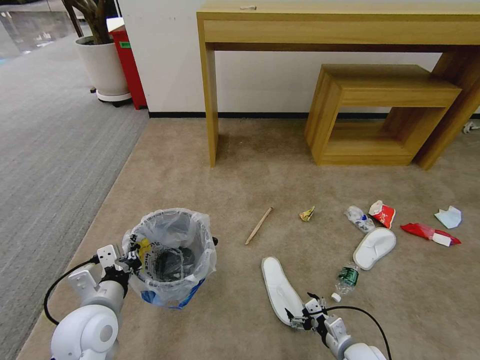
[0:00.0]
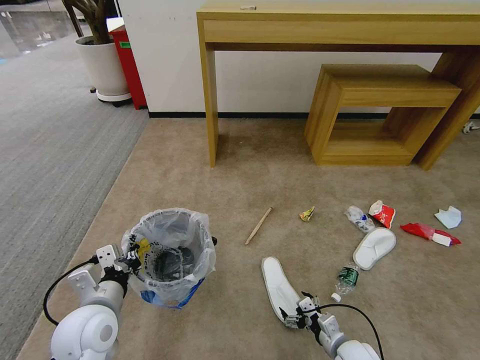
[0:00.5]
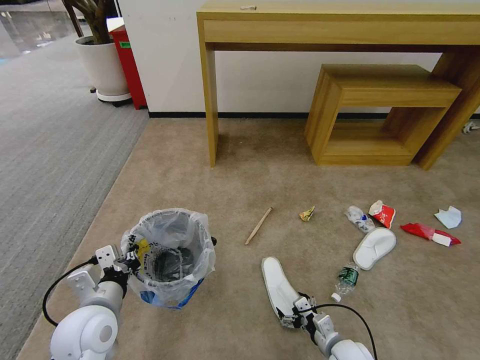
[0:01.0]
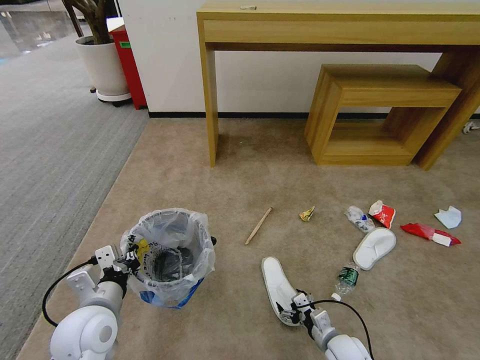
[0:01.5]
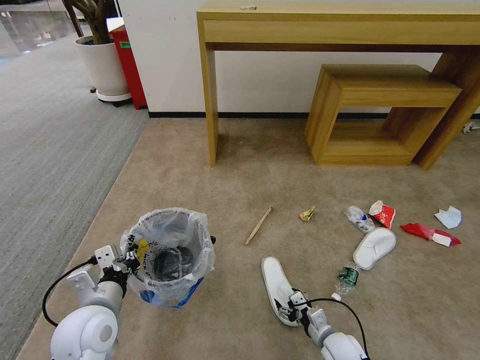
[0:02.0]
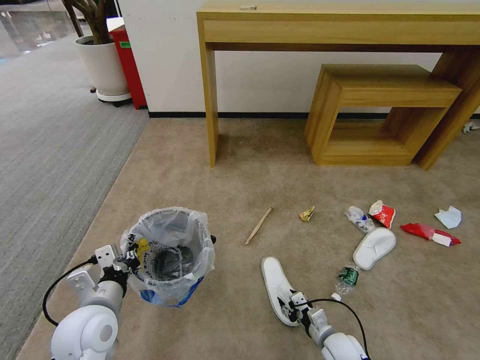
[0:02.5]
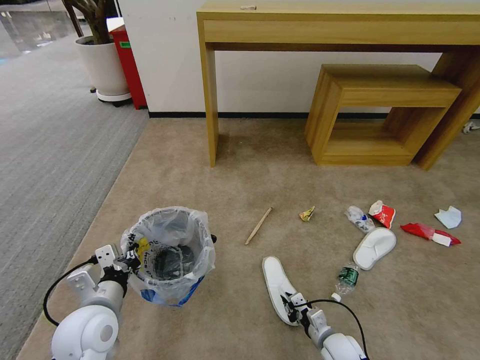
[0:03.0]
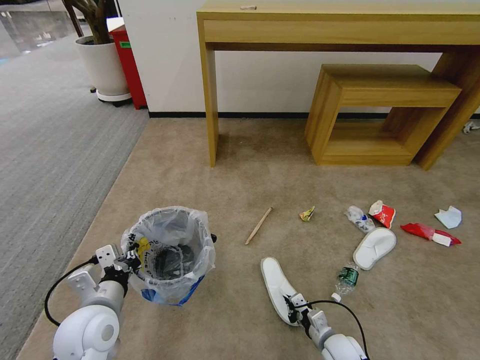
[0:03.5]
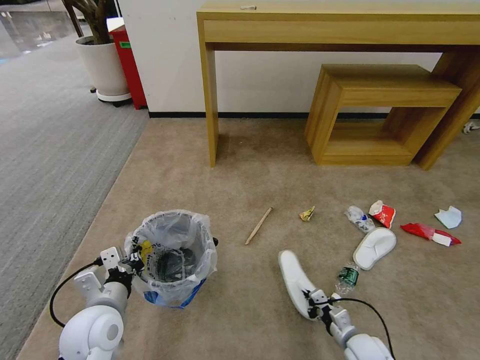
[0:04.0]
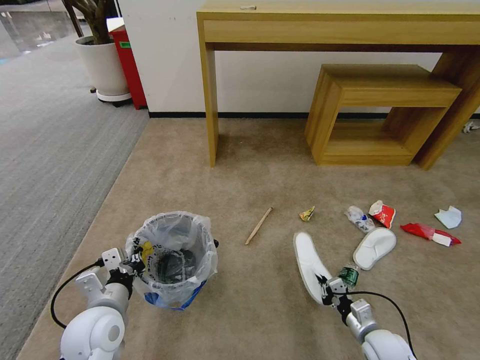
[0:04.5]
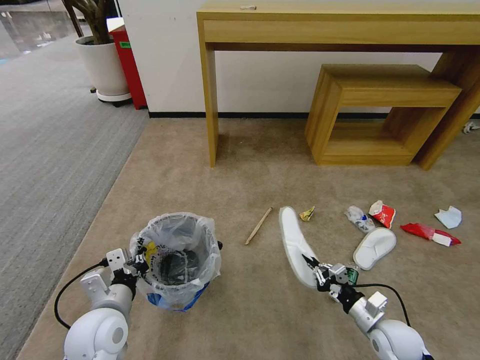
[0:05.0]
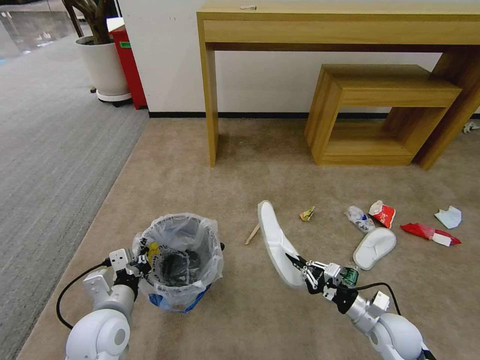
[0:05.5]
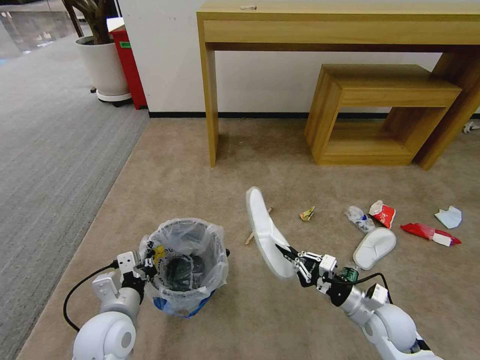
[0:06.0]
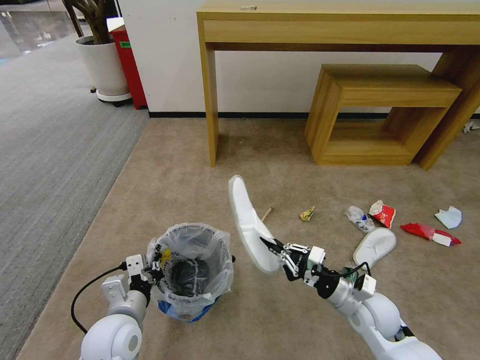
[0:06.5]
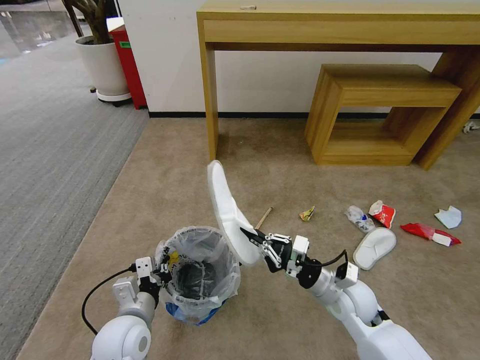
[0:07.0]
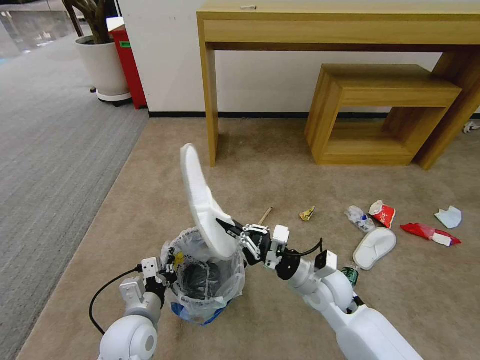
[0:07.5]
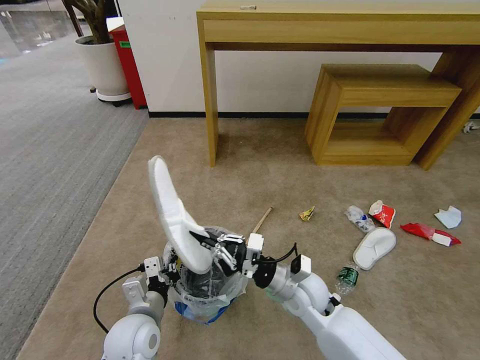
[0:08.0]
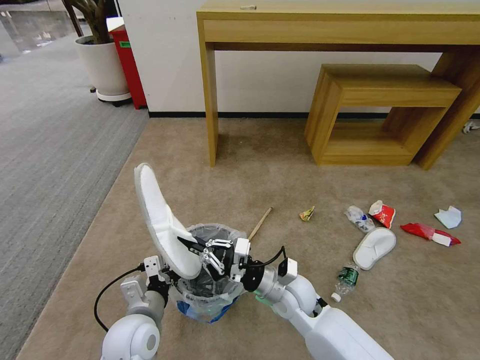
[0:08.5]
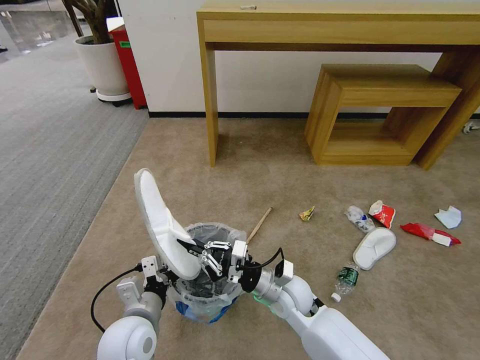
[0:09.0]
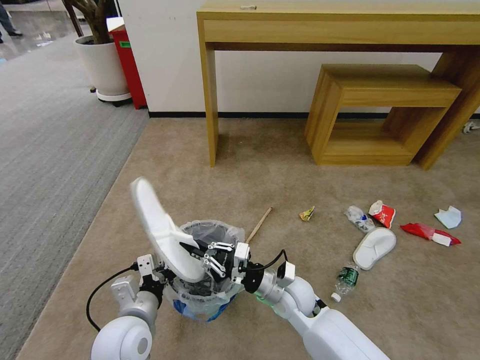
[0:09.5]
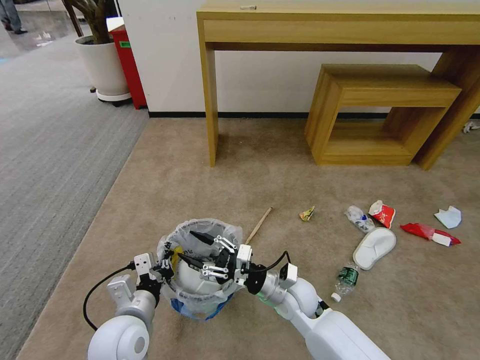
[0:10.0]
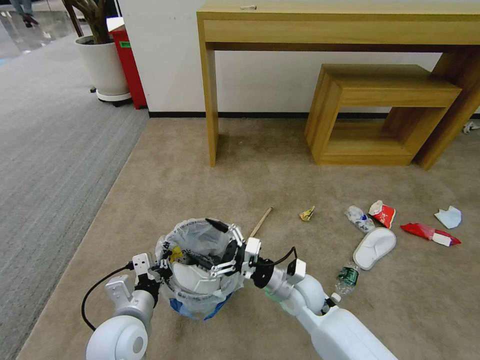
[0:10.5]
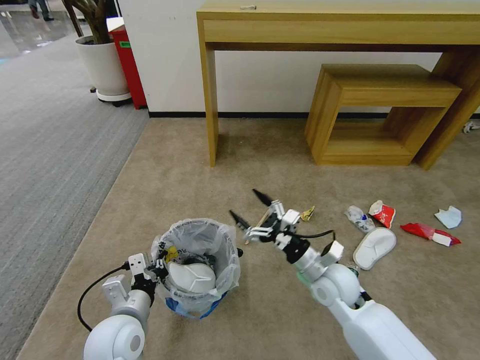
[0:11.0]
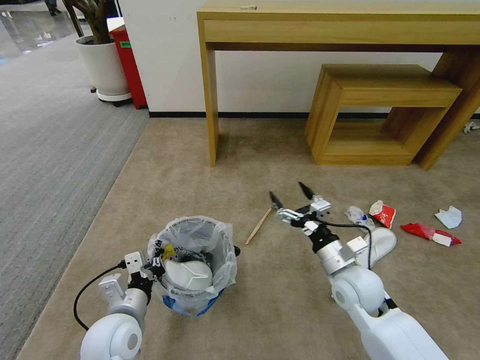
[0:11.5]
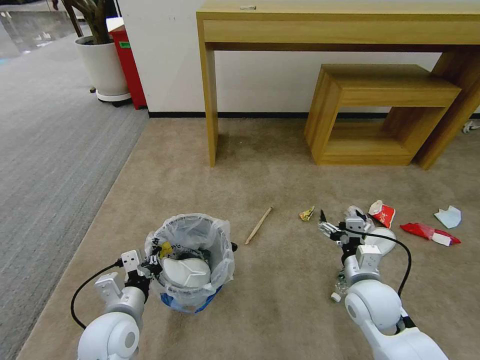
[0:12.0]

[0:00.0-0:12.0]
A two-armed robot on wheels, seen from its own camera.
Task of the whole recording: Pick up the trash bin and place the garbage on the floor into it.
0.0 to 2.0 s: The right gripper ends up approximately 5 cm from where it was.
2.0 to 4.0 s: The right gripper travels to the right by some 5 cm, and closes up.
4.0 to 6.0 s: The right gripper shifts roughly 15 cm upward.
6.0 to 8.0 s: The right gripper shifts roughly 20 cm to the left.
8.0 to 10.0 s: The right gripper opens its fingers.
10.0 to 12.0 s: The right gripper goes some 15 cm to the right and upward.

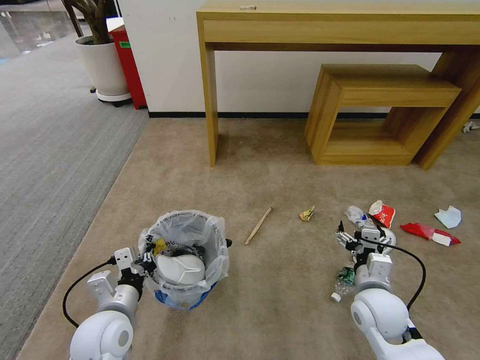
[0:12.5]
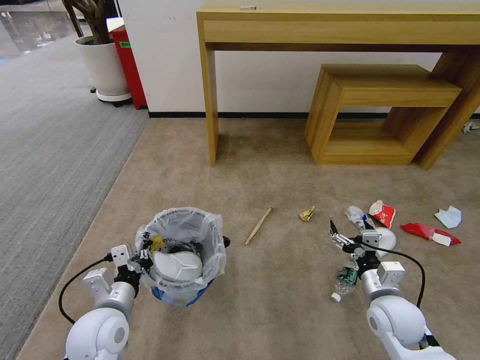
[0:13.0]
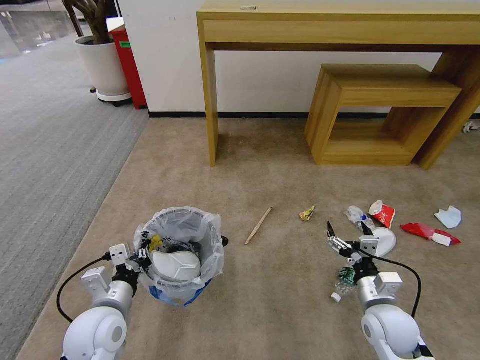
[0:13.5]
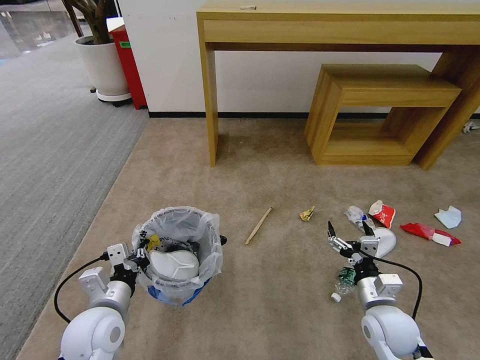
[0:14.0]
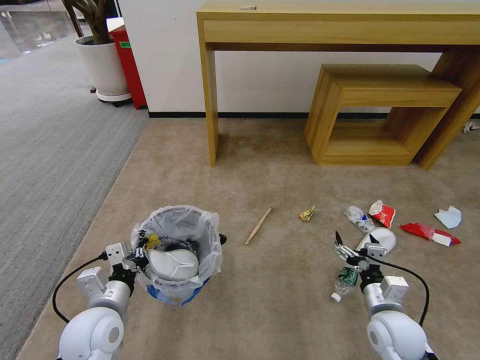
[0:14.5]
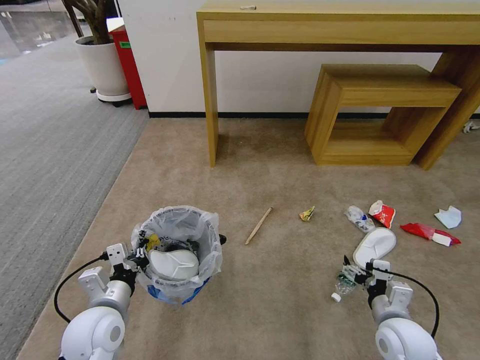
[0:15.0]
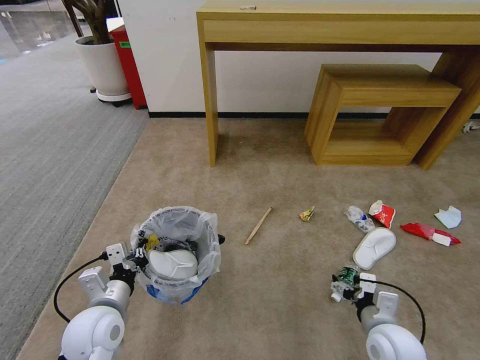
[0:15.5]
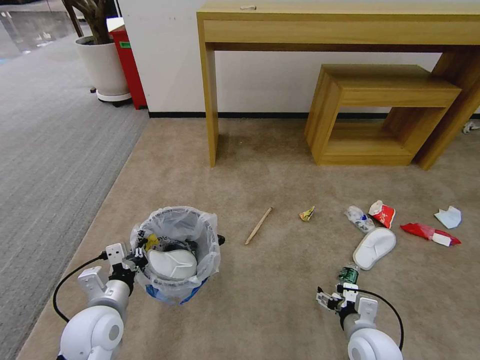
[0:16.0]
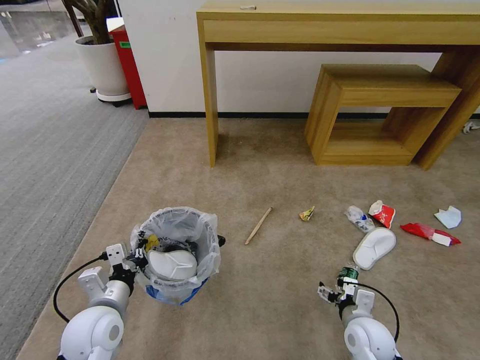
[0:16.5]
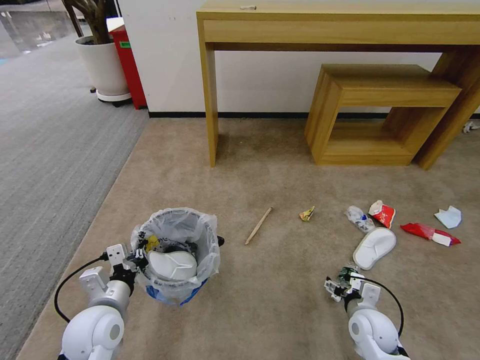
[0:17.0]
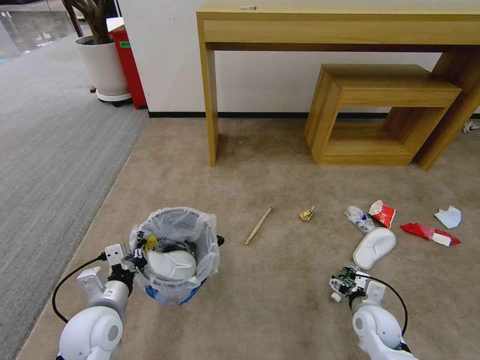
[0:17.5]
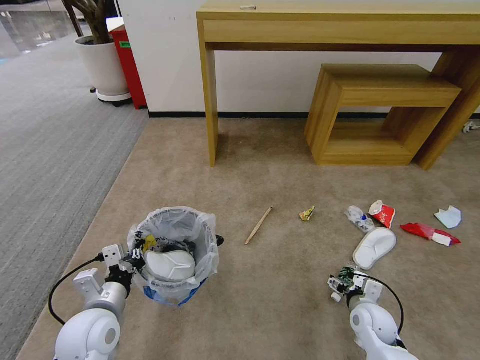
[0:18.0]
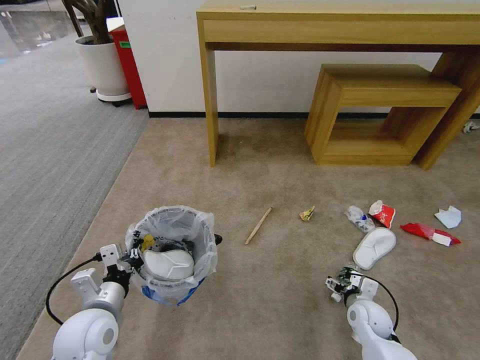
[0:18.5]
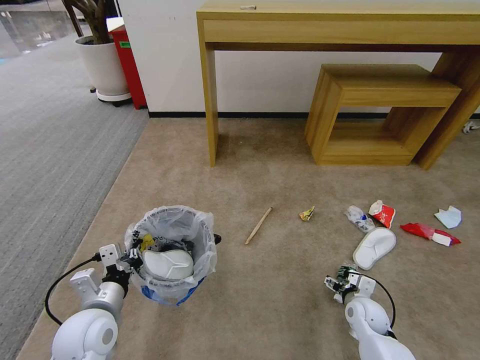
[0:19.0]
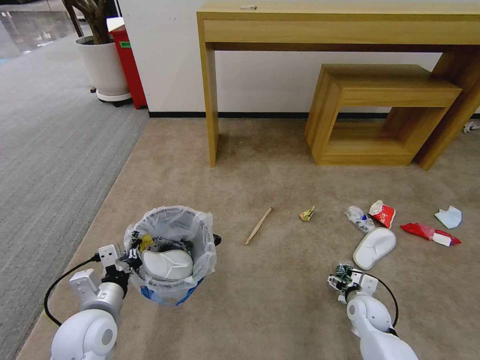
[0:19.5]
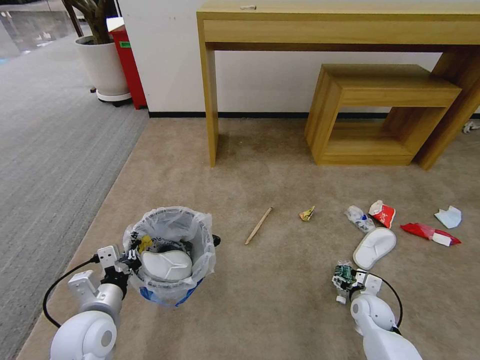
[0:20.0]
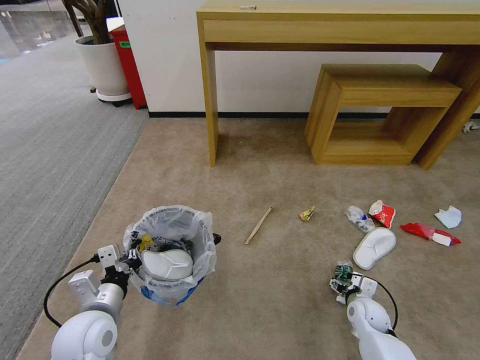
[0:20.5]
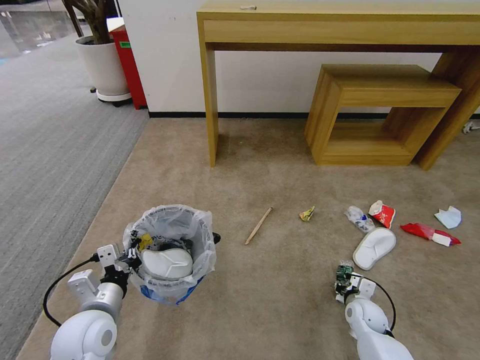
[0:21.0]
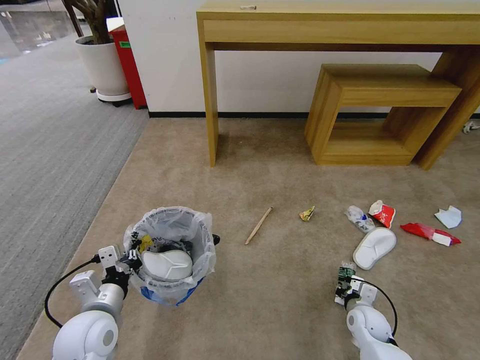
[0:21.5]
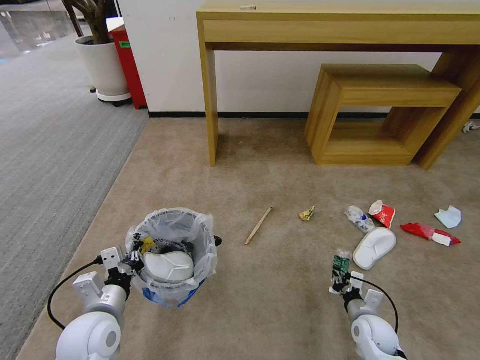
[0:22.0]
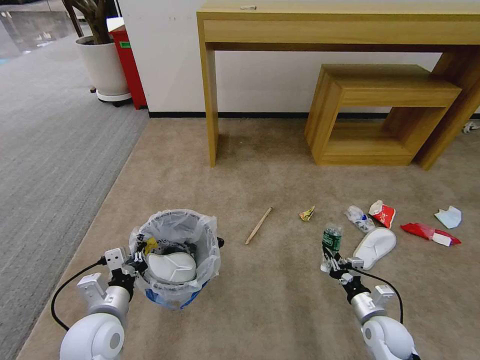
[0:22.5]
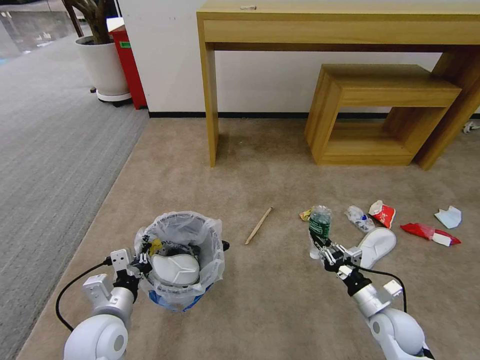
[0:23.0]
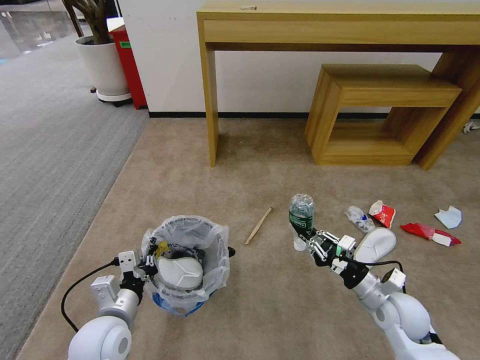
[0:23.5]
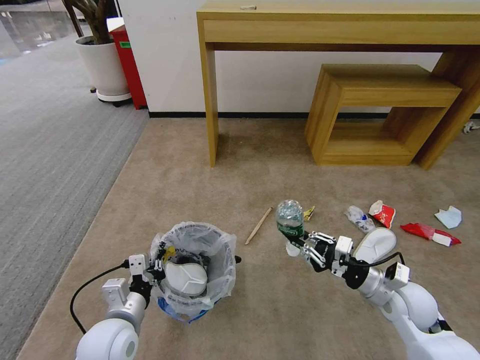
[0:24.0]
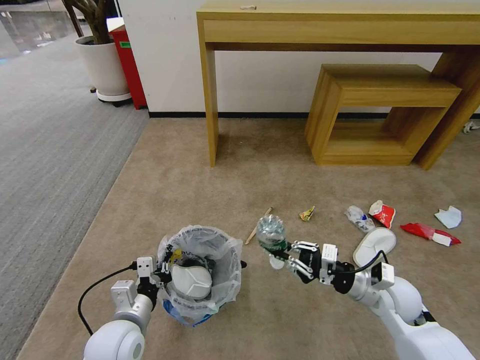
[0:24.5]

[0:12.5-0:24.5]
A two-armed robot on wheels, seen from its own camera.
Task of the whole recording: Pick up the trash bin and place the garbage on the floor into it.
12.5 to 14.5 s: The right gripper ends up roughly 5 cm from where it was.
14.5 to 16.5 s: The right gripper heads downward, covering roughly 5 cm.
16.5 to 18.5 s: The right gripper travels forward by approximately 5 cm.
18.5 to 20.5 s: The grippers make only small movements.
20.5 to 22.5 s: The right gripper is displaced backward by roughly 5 cm, and closes up.
22.5 to 24.5 s: The right gripper shifts about 15 cm upward.

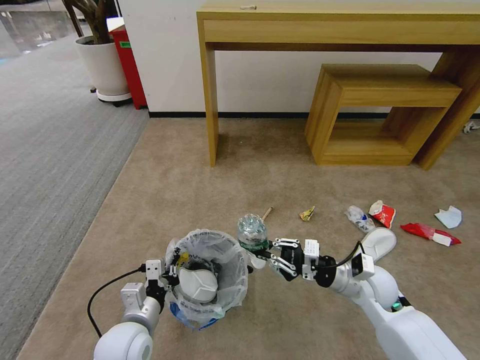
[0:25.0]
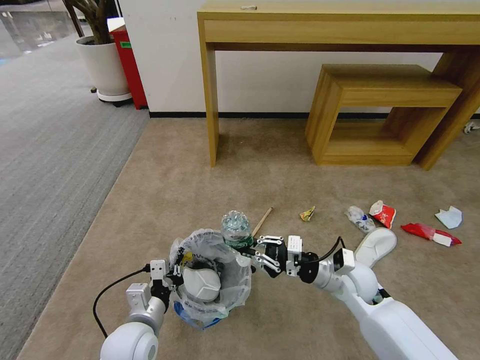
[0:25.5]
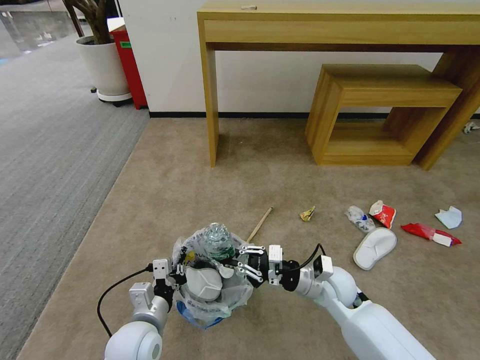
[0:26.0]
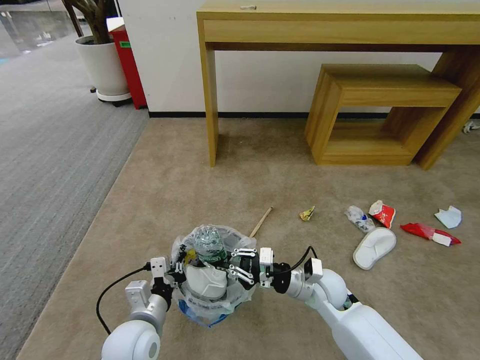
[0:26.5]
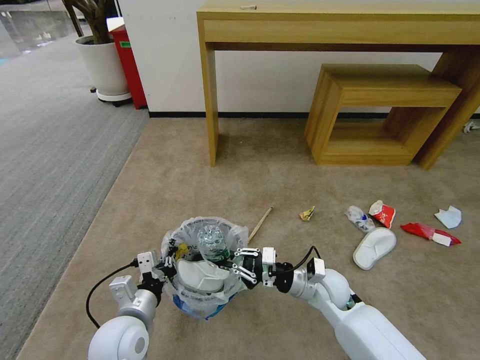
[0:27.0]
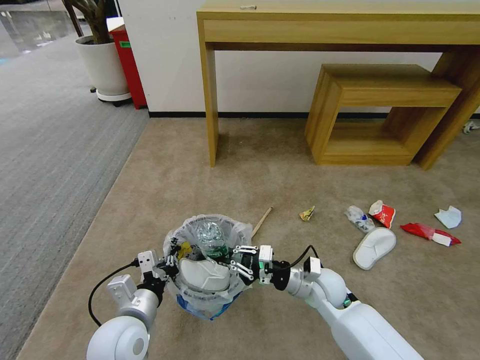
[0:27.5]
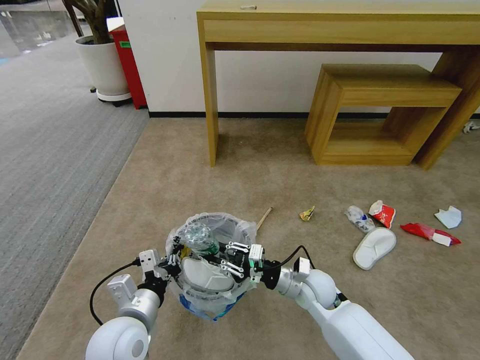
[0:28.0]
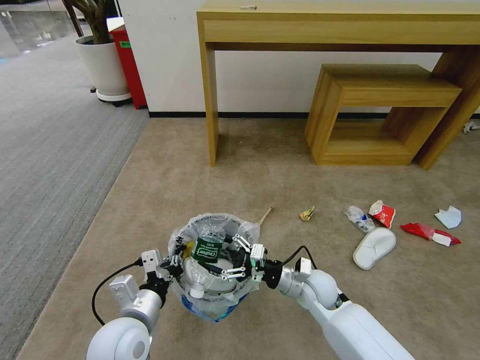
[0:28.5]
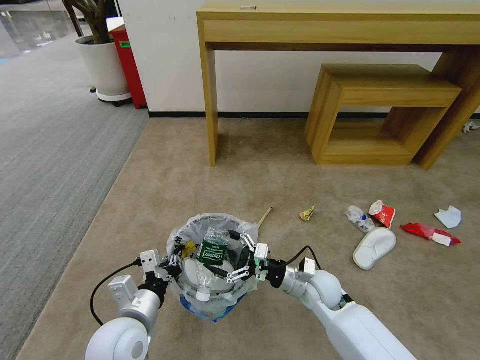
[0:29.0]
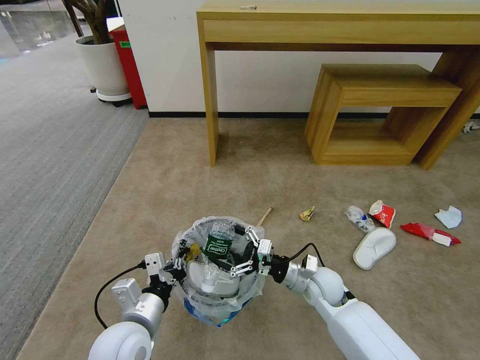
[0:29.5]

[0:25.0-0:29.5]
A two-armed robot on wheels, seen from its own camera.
Task of the whole recording: Pick up the trash bin and place the garbage on the floor into it.
25.0 to 27.0 s: The right gripper is displaced to the left by roughly 10 cm.
27.0 to 29.5 s: The right gripper opens its fingers.
